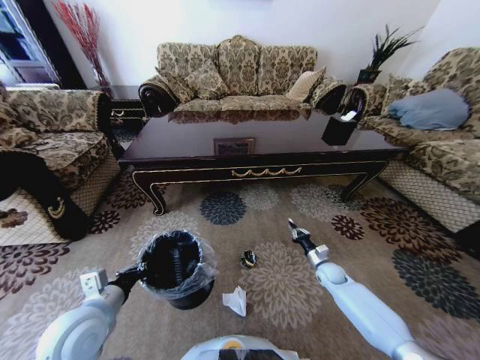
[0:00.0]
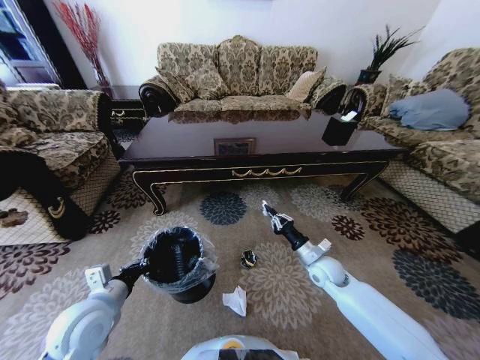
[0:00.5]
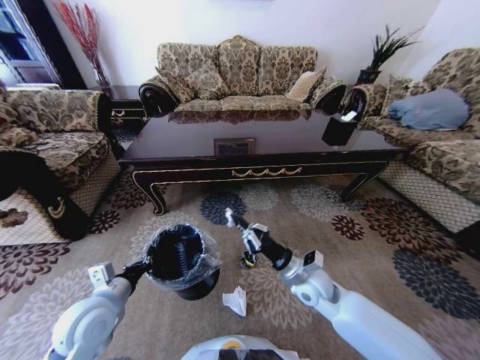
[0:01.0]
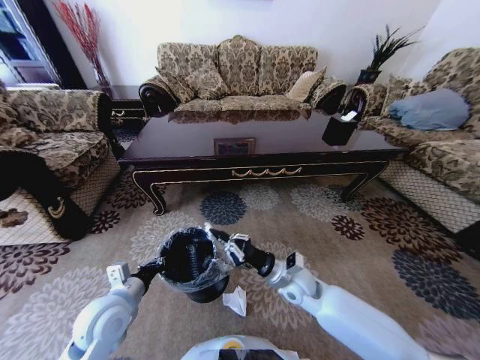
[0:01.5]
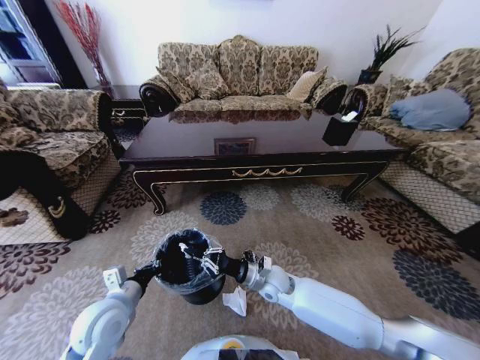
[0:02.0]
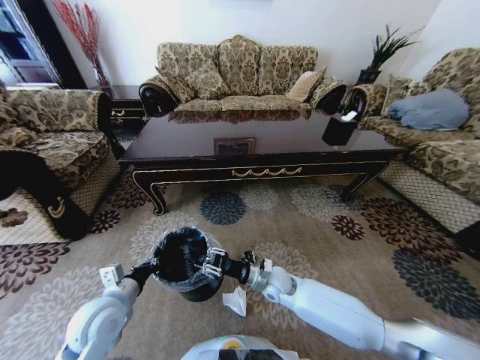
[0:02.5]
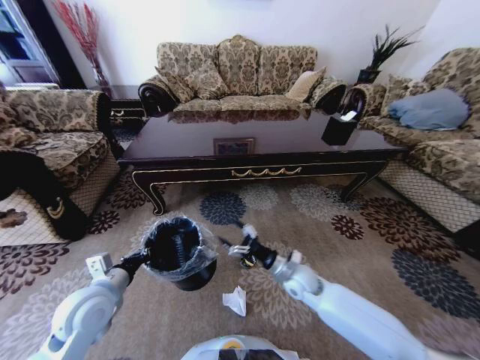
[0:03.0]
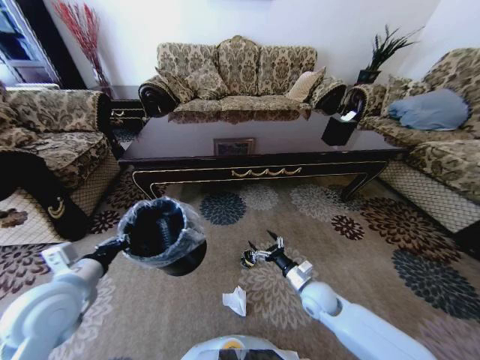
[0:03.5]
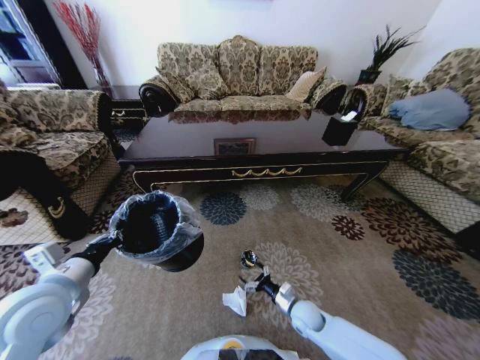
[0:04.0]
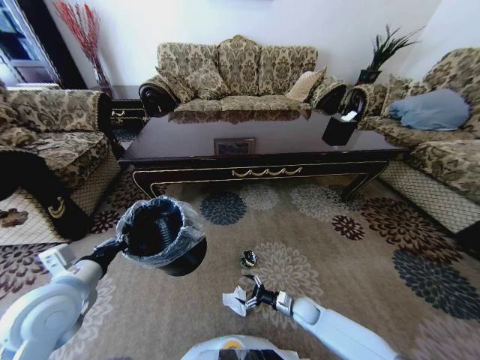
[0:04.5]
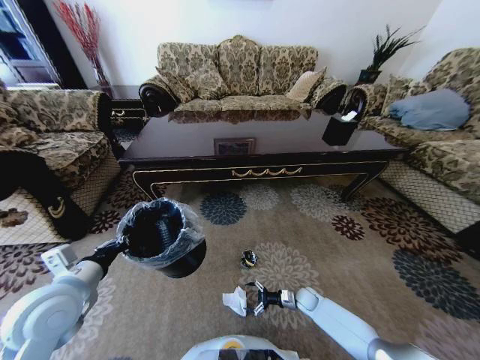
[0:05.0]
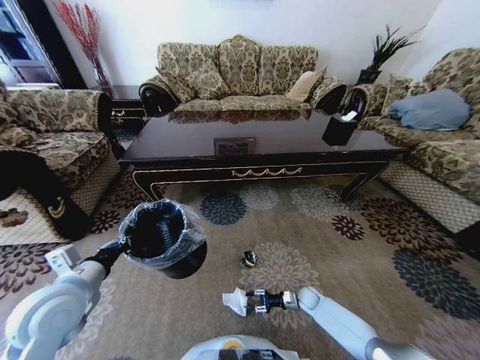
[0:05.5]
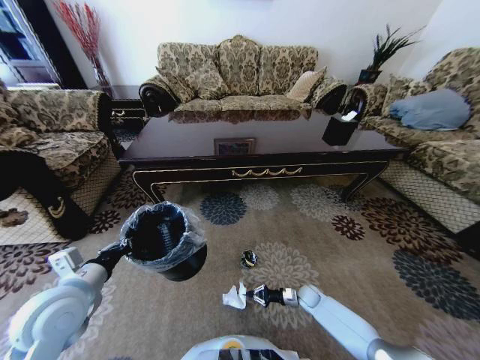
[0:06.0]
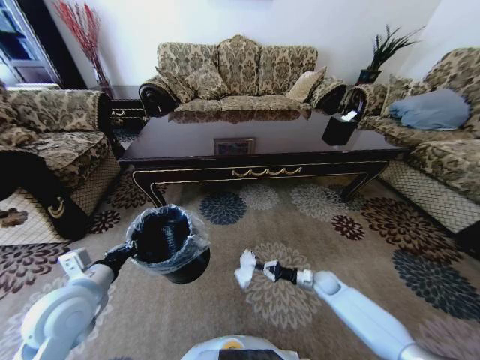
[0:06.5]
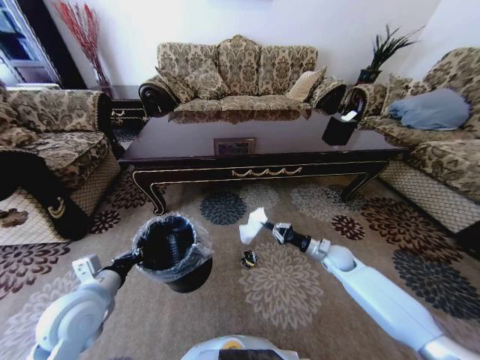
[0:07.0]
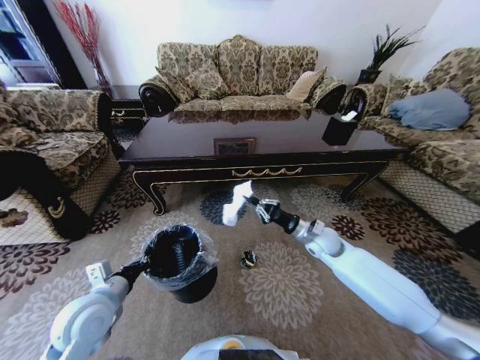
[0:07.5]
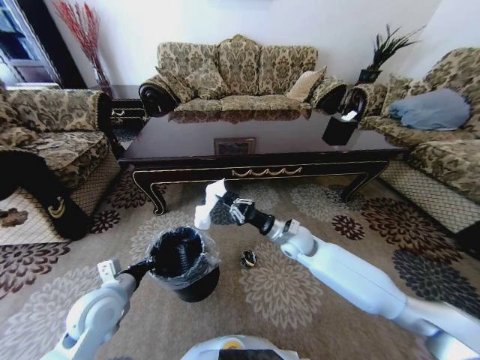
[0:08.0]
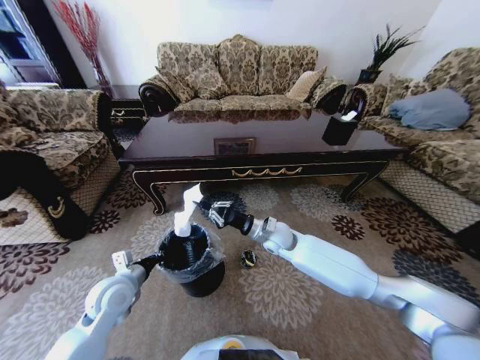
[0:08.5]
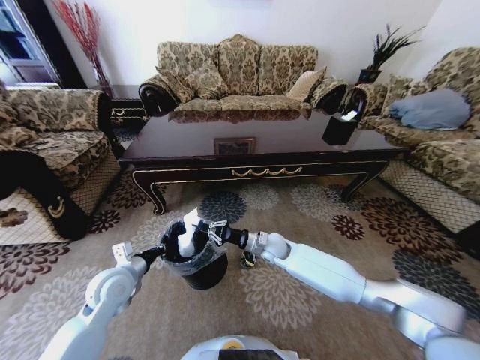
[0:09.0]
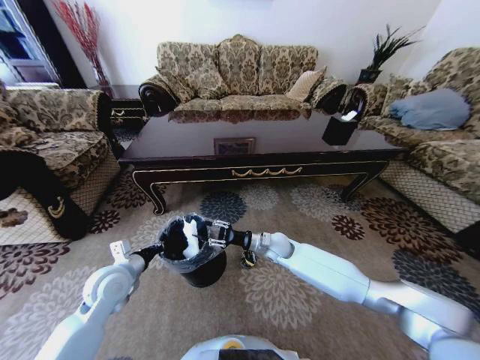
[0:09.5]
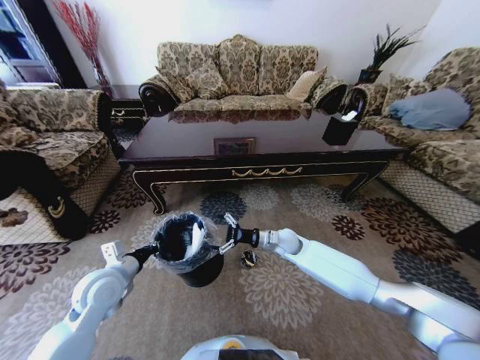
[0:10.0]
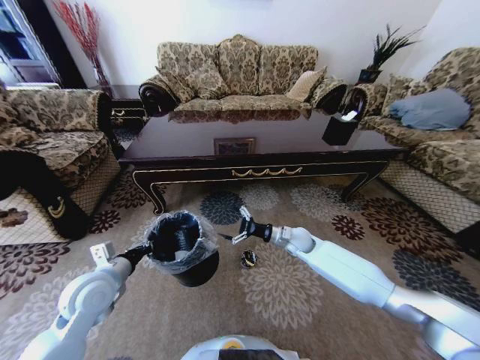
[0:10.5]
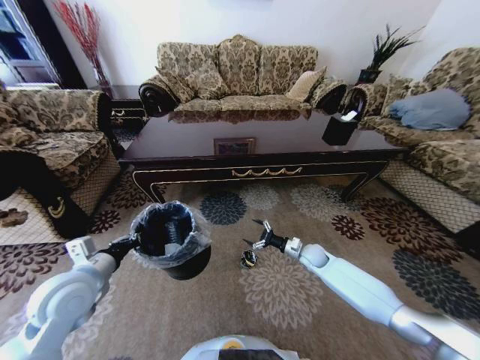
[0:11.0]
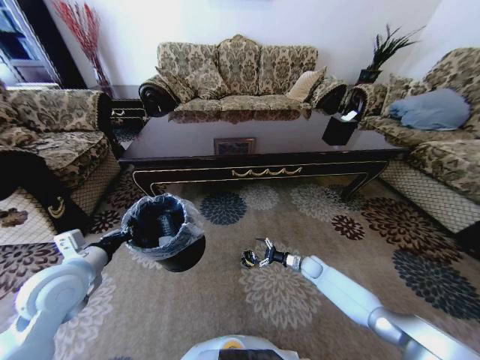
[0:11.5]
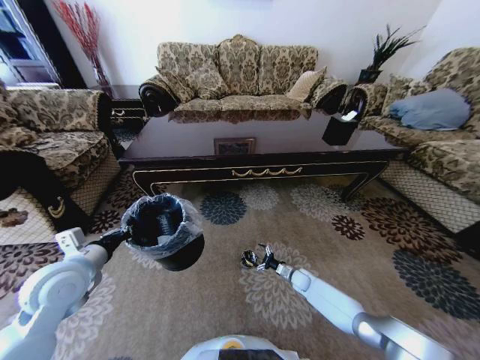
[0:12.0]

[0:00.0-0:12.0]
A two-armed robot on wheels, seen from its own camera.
Task of the whole recording: Move to the front of the table and pick up the trash from the floor, then place it into the trash bin.
0:00.0 to 0:02.0: The right gripper travels to the left and upward by roughly 30 cm.
0:02.0 to 0:04.0: The right gripper goes roughly 20 cm downward, to the right and backward, and opens, while the left gripper travels upward and to the left by about 10 cm.
0:04.0 to 0:06.0: The right gripper moves downward, forward and to the right, approximately 15 cm, and closes its fingers.
0:06.0 to 0:08.0: The right gripper goes some 35 cm upward and to the left, while the left gripper goes some 10 cm downward.
0:08.0 to 0:10.0: The right gripper is displaced downward by about 5 cm, and opens up.
0:10.0 to 0:12.0: The left gripper heads upward, covering about 5 cm; the right gripper travels downward and to the right by some 25 cm.

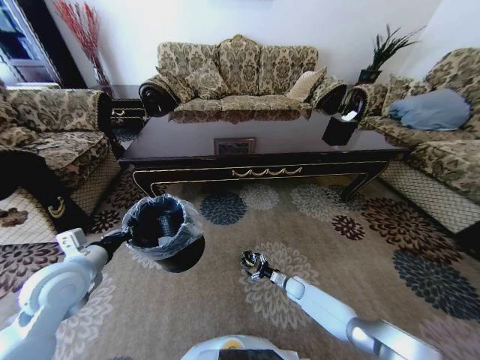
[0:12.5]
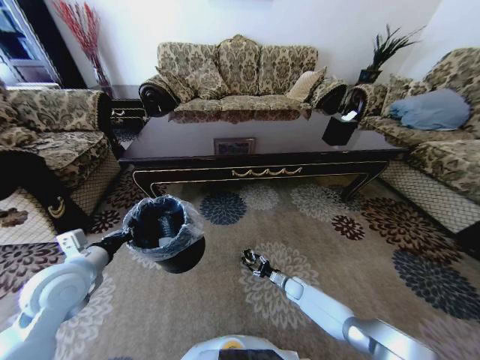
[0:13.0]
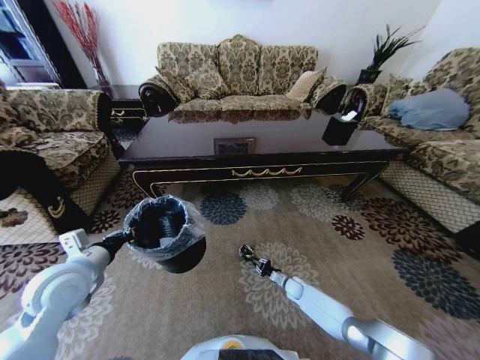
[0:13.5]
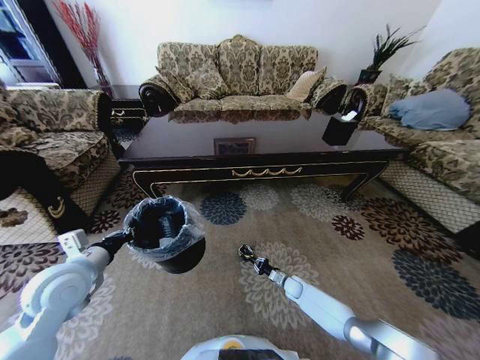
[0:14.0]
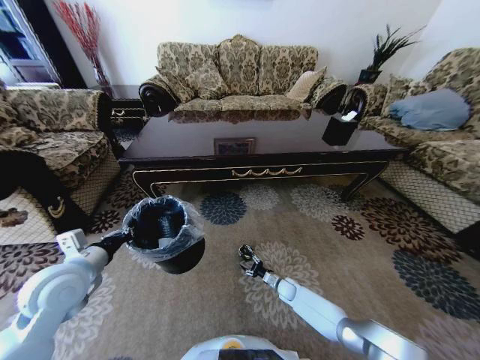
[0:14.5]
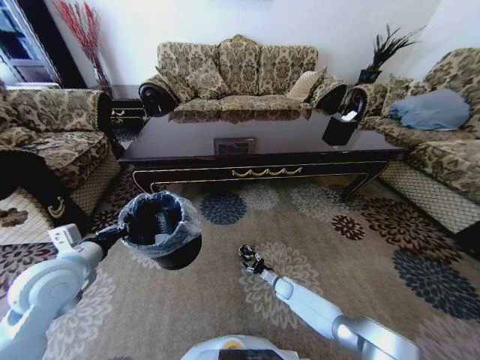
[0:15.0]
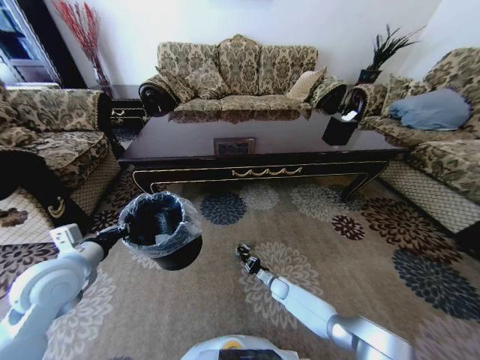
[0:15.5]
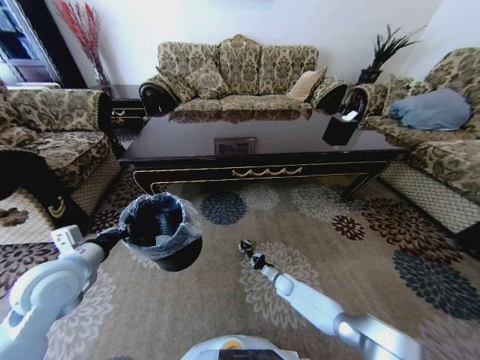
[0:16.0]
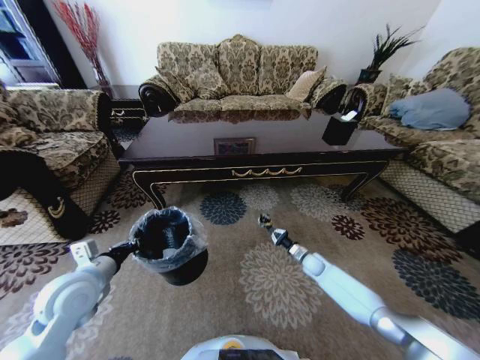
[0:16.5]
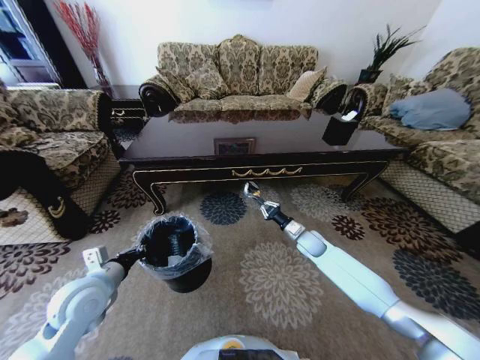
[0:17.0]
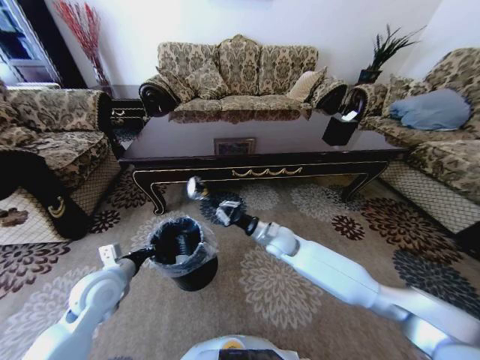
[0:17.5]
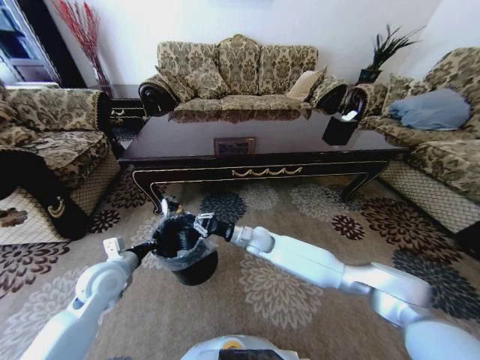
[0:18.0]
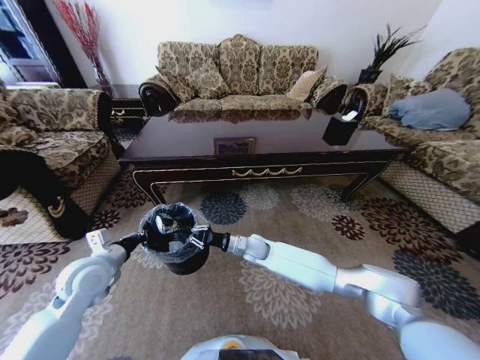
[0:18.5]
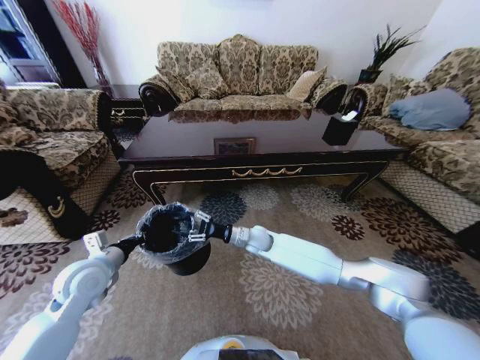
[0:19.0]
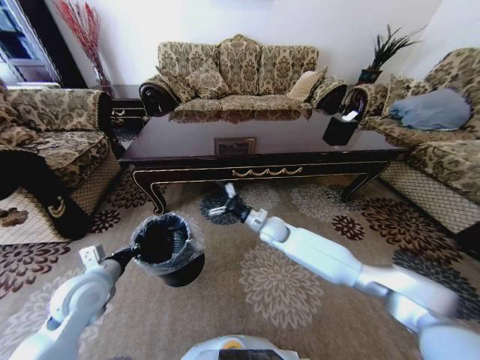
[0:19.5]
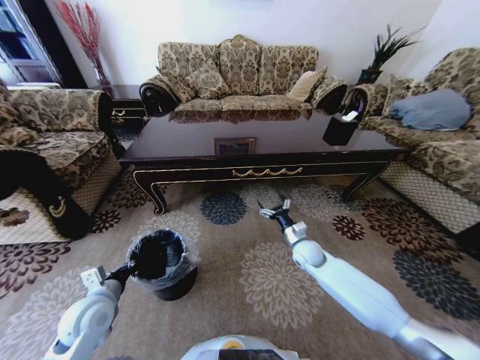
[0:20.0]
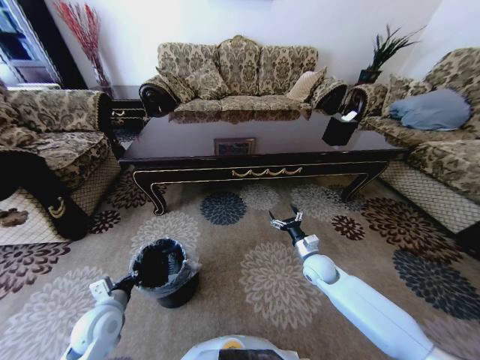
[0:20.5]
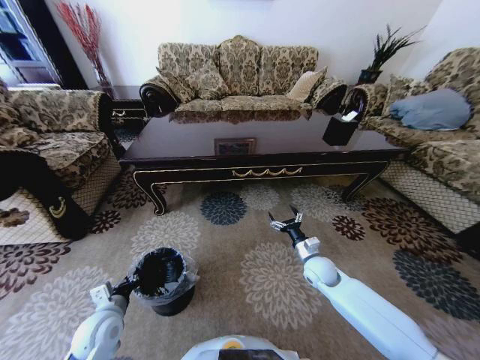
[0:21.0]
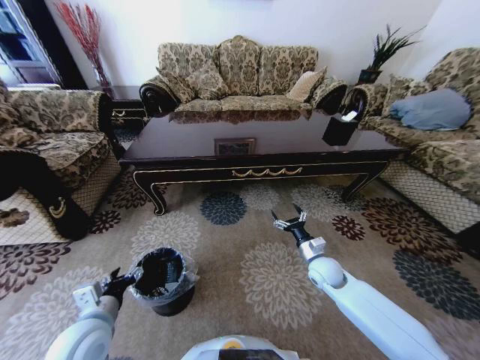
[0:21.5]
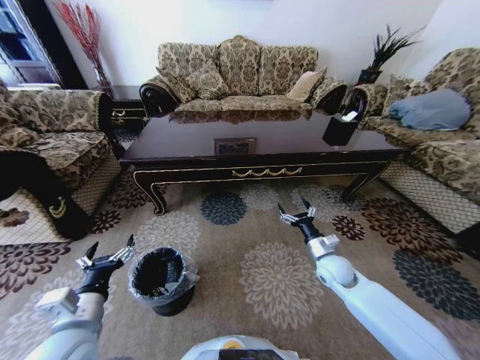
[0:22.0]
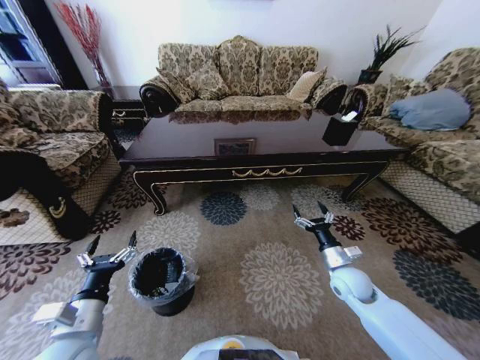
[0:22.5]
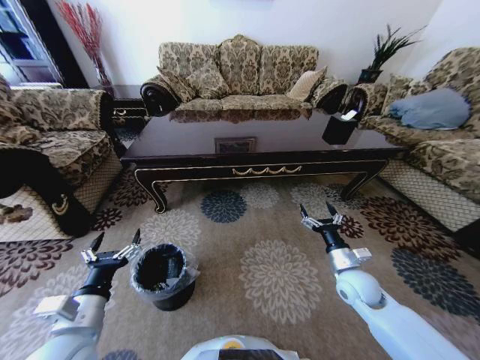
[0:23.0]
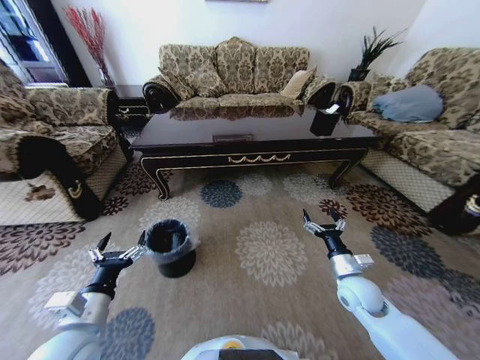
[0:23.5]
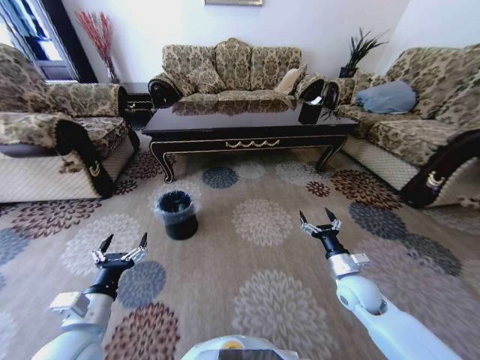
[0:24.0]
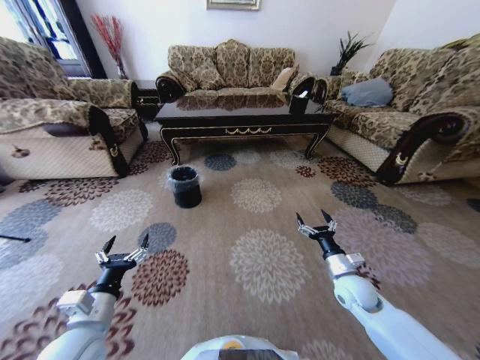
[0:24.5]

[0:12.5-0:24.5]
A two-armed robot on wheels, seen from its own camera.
Task of the whole recording: Move to the front of the table and pick up the trash from the floor, then place it into the trash bin.
0:12.5 to 0:14.5: The right gripper closes.
0:14.5 to 0:16.5: The right gripper travels upward, to the right and forward by roughly 15 cm, and closes.
0:16.5 to 0:18.5: The right gripper goes approximately 30 cm to the left and upward.
0:18.5 to 0:20.5: The right gripper heads to the right, covering about 20 cm, and opens. Meanwhile the left gripper goes about 15 cm downward and backward.
0:20.5 to 0:22.5: The right gripper moves backward and to the right, approximately 10 cm. The left gripper is displaced upward and backward by about 10 cm, and opens.

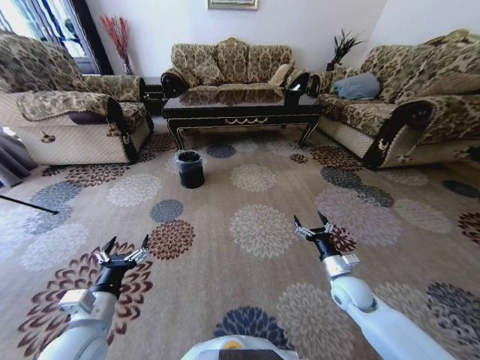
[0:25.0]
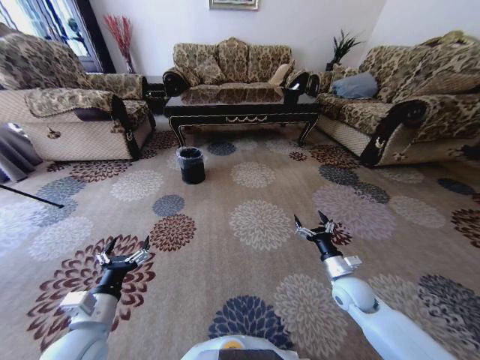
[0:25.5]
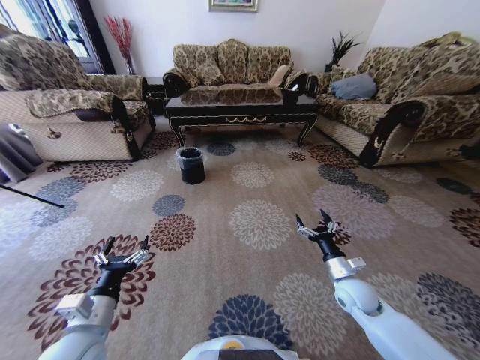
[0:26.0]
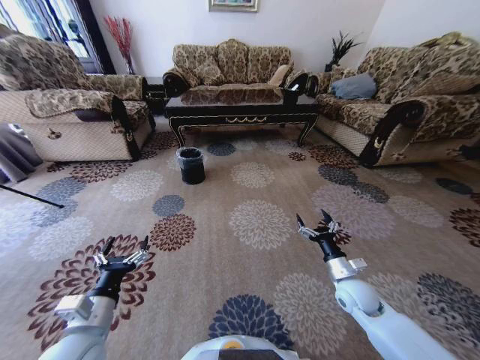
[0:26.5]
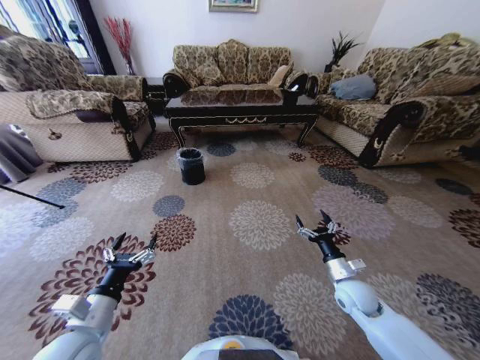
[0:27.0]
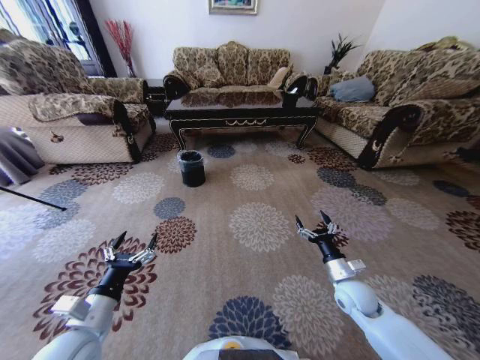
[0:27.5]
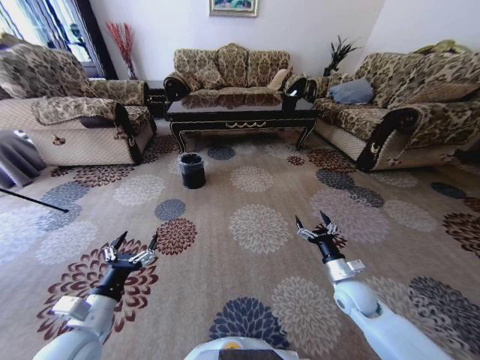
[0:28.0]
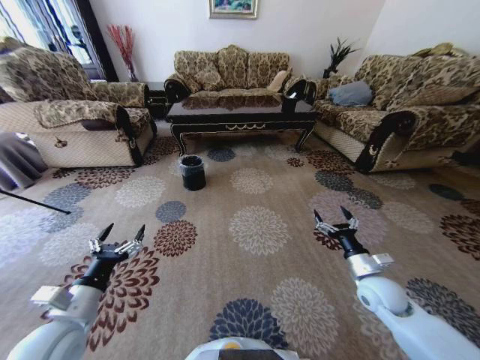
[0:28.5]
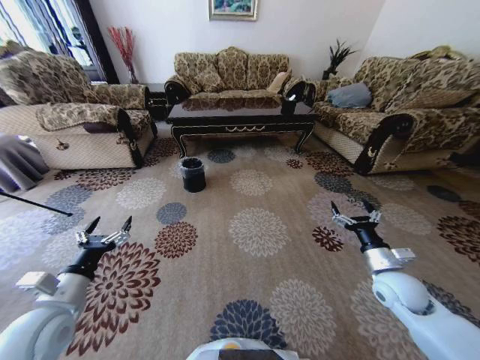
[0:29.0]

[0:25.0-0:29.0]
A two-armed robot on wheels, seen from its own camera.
Task of the whole recording: Move to the front of the table and pick up the trash from the floor, then place it into the trash bin.
0:25.0 to 0:27.0: The grippers move only a little.
0:27.0 to 0:29.0: The left gripper heads to the left, covering approximately 5 cm; the right gripper travels to the right and upward by roughly 10 cm.
